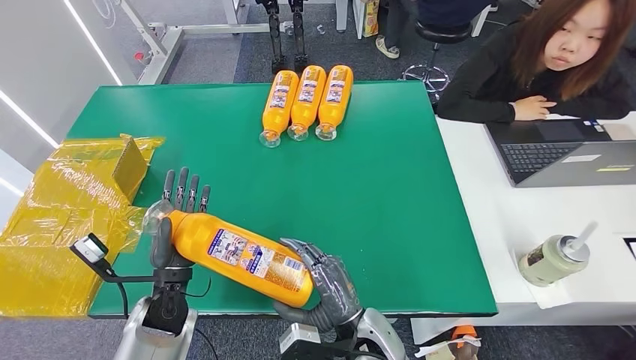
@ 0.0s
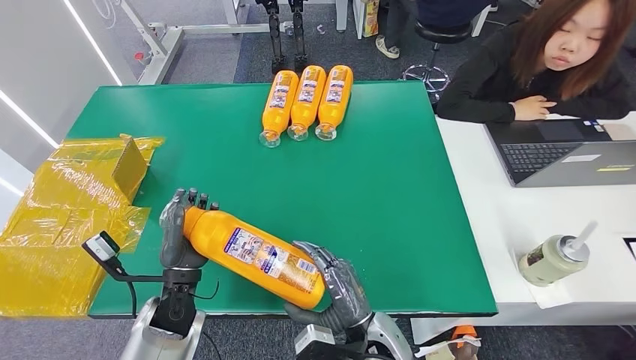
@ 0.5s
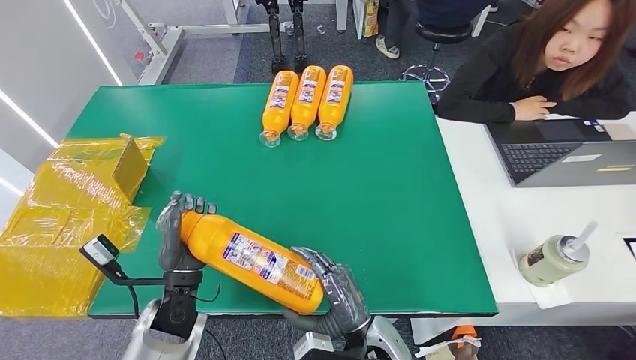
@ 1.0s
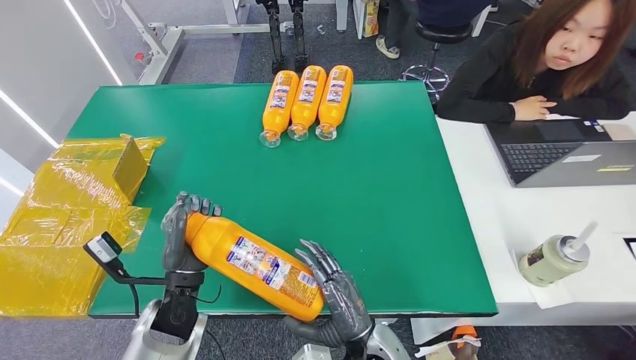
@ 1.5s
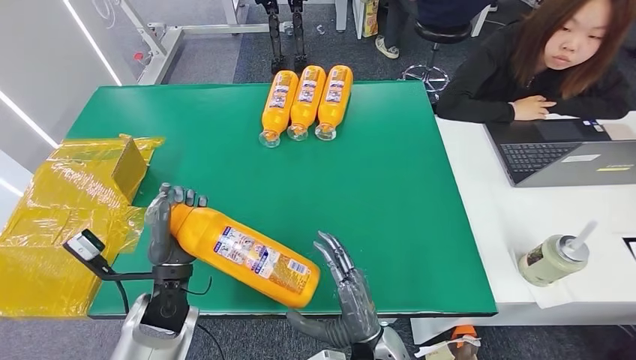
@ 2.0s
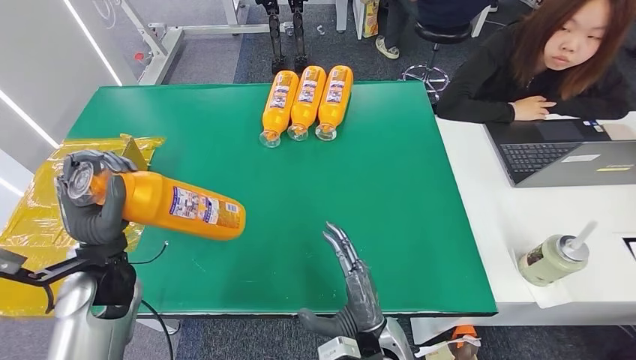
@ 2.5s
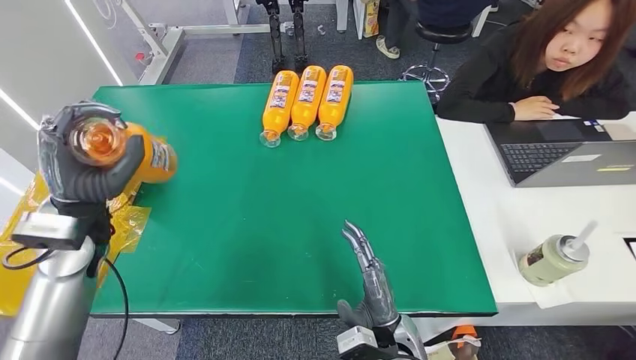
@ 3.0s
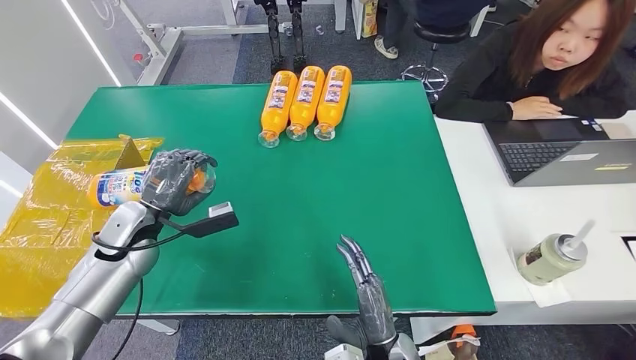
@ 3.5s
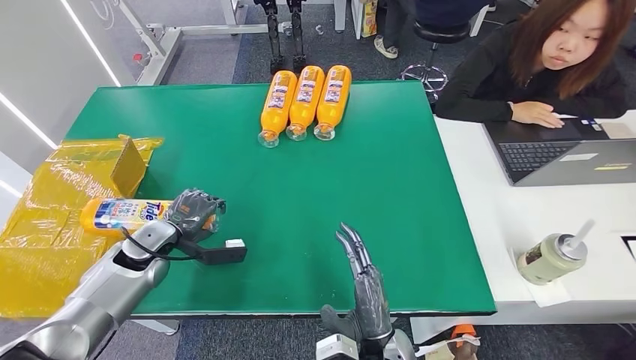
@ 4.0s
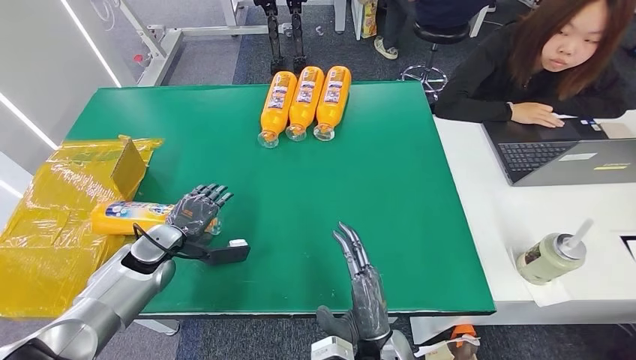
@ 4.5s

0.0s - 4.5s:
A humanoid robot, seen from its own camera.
Step, 0.0s - 4.5s: Turn the bottle to the front side.
0.0s - 2.0s: The hands make only small movements.
2.0s - 4.5s: The left hand shifts approximately 15 cm to the left and forward, and moves some 15 cm upward and comes back.
